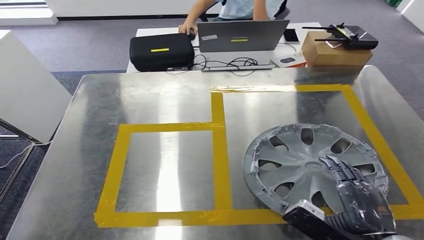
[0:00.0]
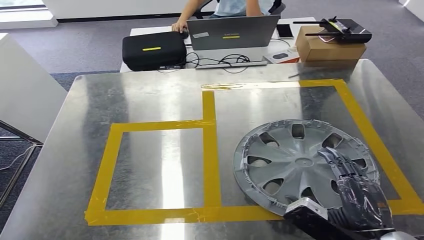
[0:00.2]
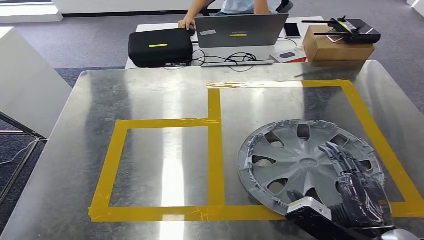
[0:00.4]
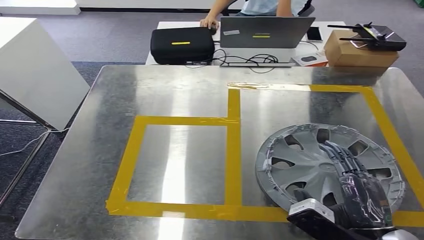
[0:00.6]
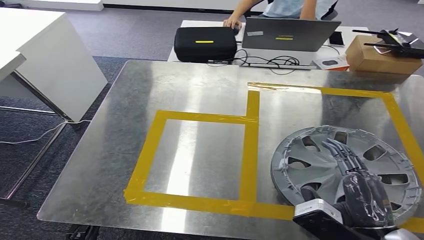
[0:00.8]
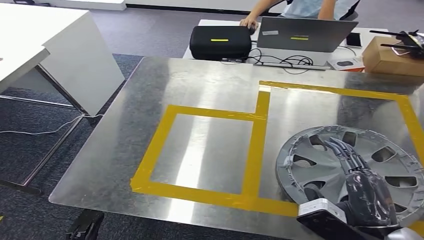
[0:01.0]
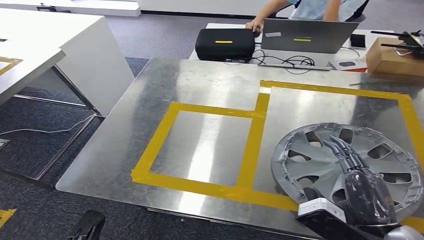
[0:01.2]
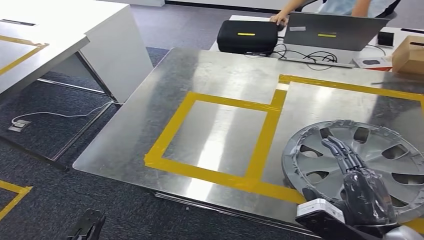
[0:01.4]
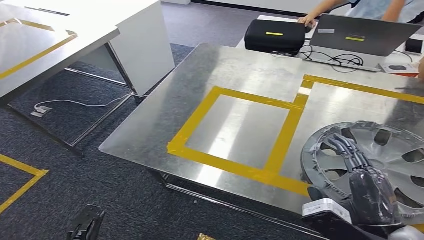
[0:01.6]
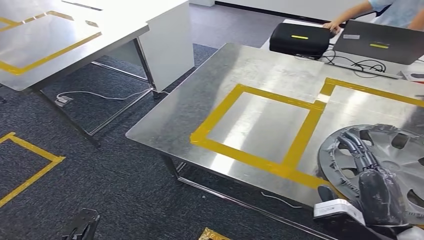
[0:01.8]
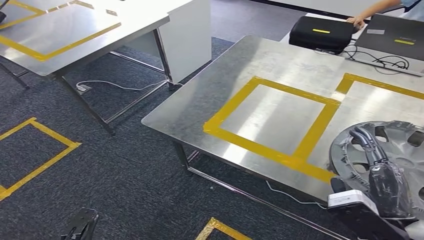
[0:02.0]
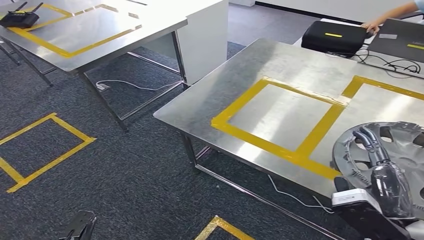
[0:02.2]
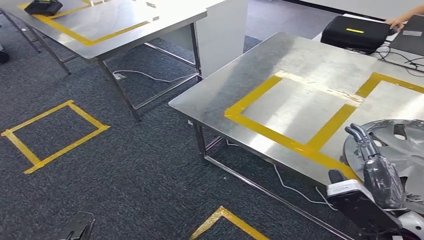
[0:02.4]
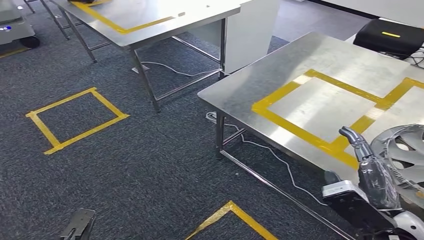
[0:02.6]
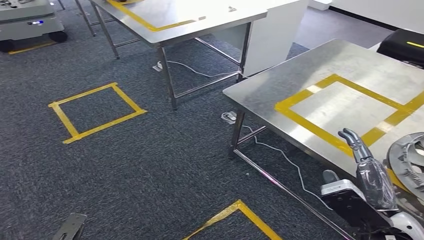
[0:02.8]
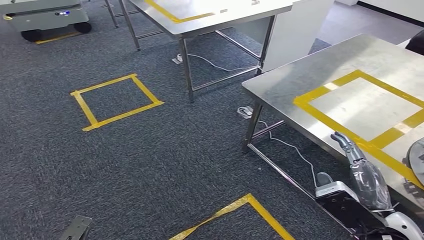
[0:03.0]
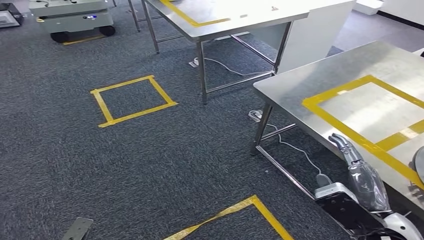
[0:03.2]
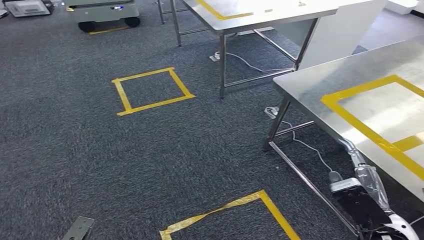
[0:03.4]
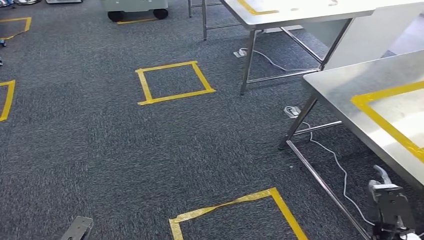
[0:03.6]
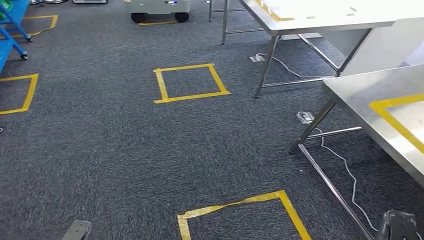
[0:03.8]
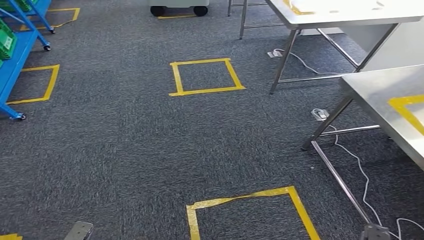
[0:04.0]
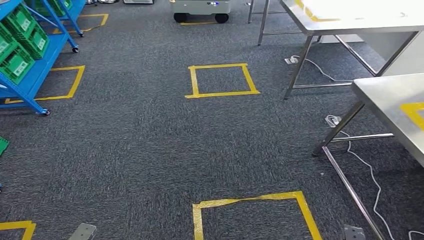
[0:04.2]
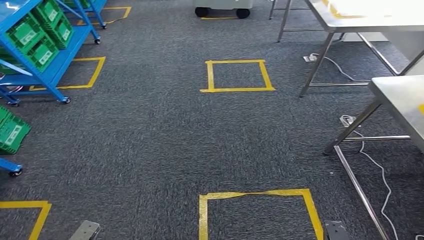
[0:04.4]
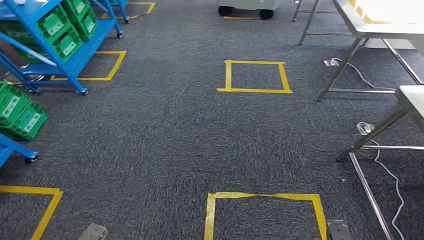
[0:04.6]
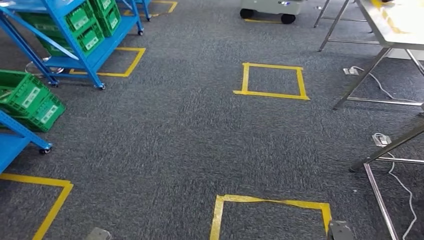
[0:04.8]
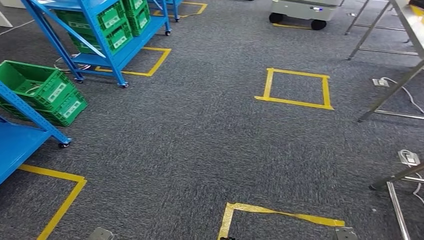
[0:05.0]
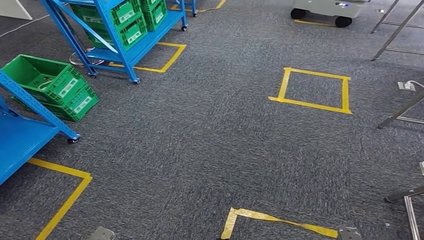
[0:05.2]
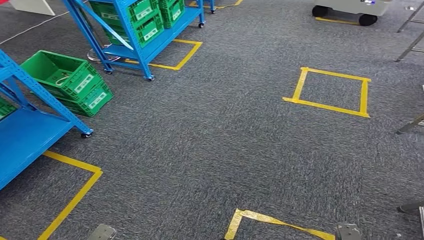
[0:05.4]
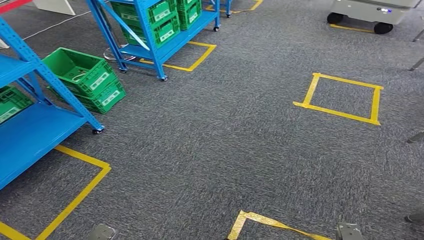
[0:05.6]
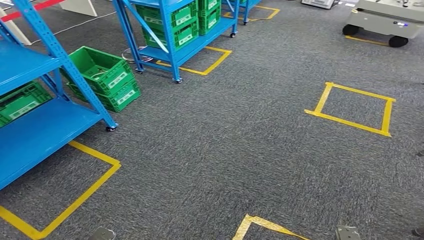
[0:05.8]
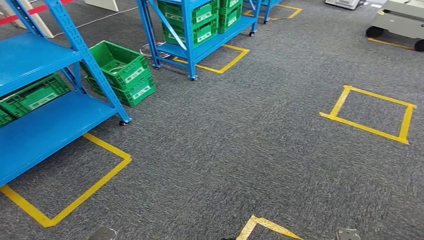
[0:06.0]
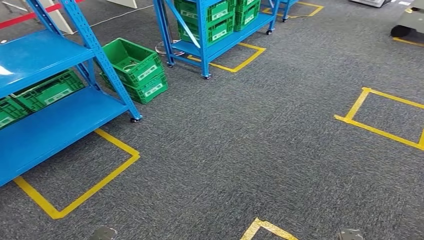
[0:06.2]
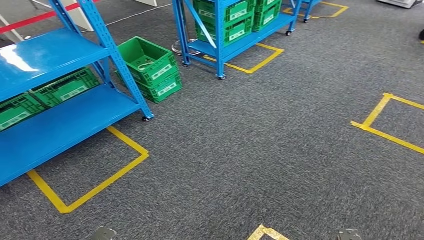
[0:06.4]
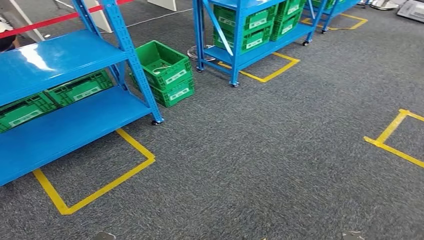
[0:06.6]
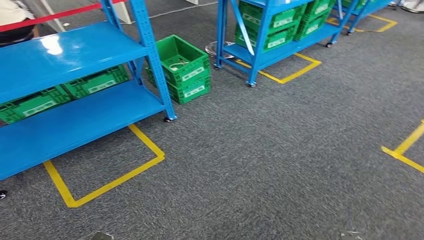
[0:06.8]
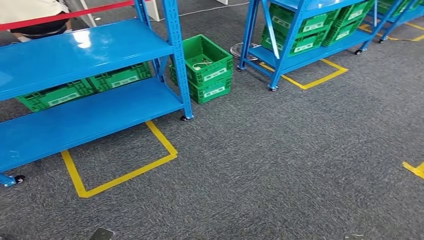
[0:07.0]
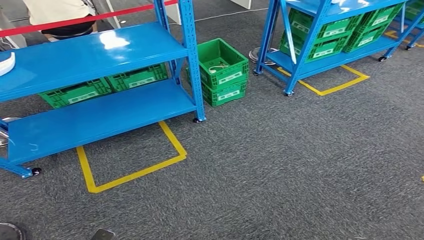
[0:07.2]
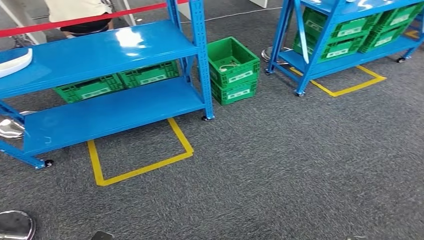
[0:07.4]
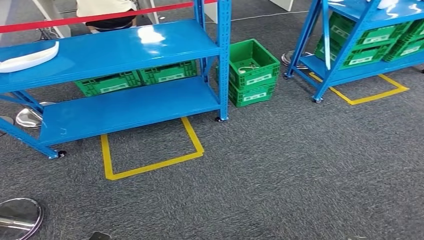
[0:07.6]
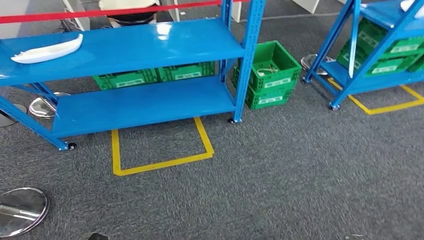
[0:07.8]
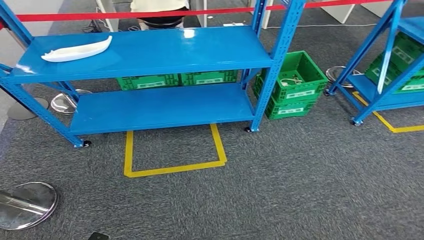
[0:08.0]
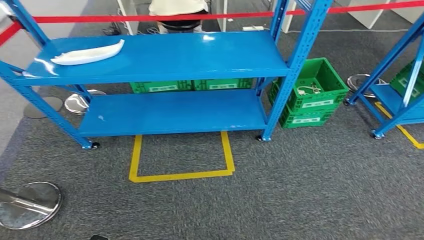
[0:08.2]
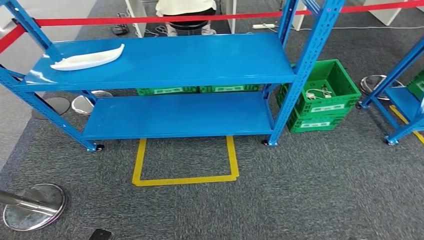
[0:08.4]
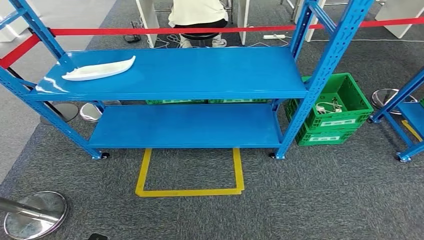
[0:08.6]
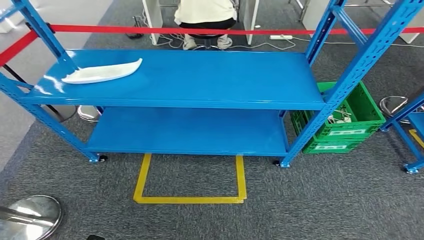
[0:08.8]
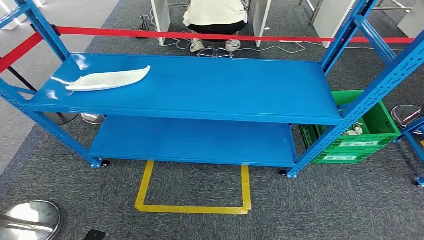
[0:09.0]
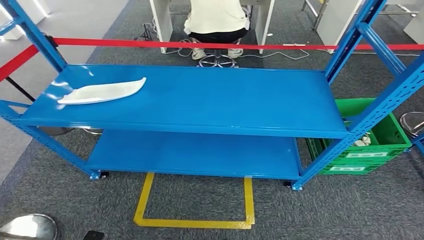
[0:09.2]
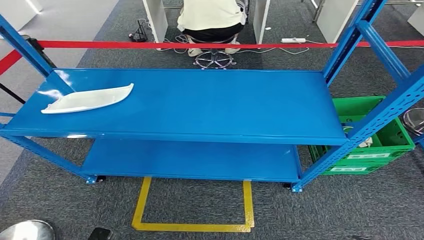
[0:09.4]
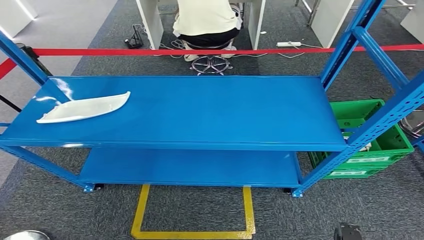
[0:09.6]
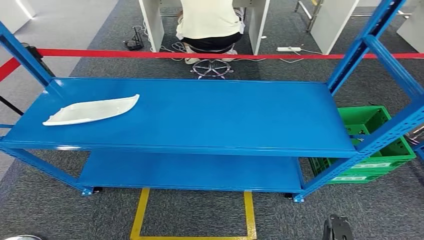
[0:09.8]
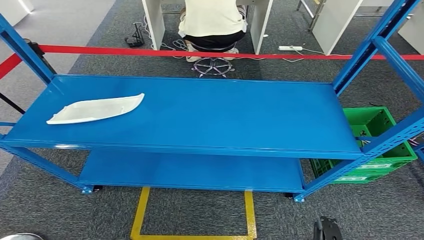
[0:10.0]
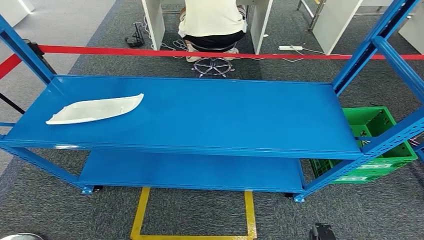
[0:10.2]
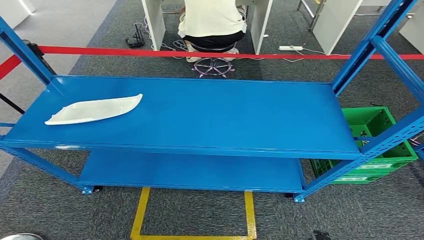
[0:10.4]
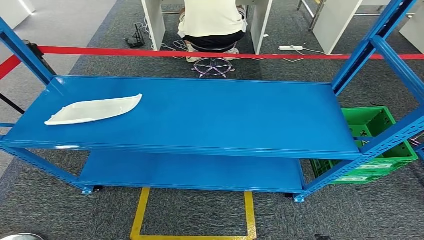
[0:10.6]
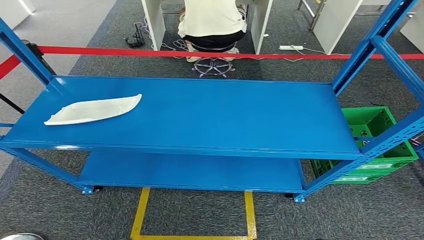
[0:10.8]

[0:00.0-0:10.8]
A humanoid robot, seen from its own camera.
Step, 0:00.0 to 0:01.8: Insert the small parts into the corresponding holes on the workbench.
Step, 0:02.0 to 0:10.8: Move to the initial position of the workbench.
